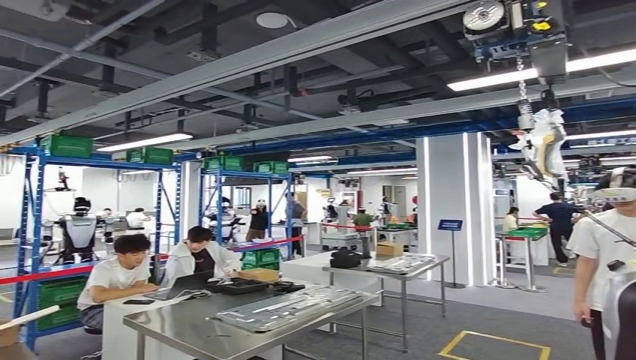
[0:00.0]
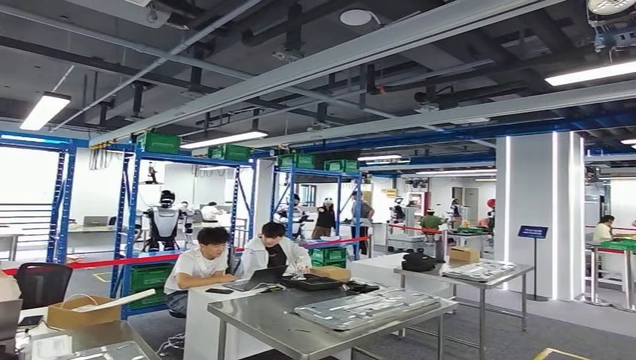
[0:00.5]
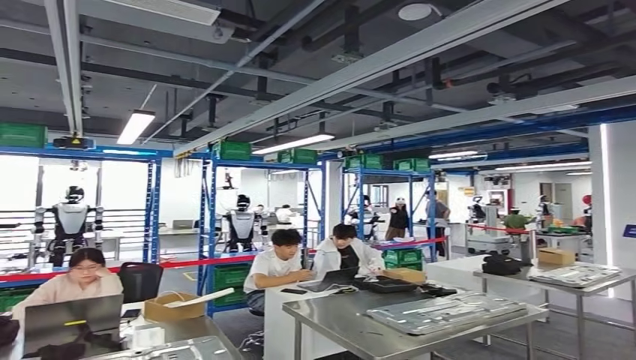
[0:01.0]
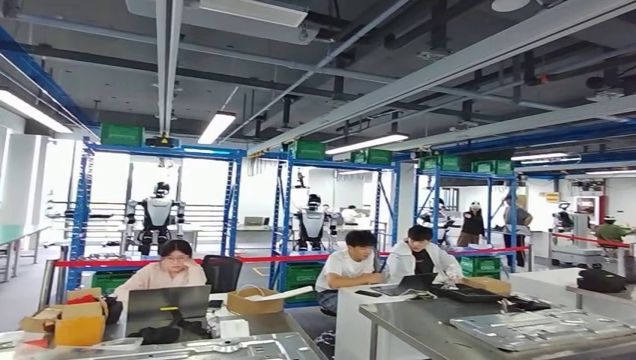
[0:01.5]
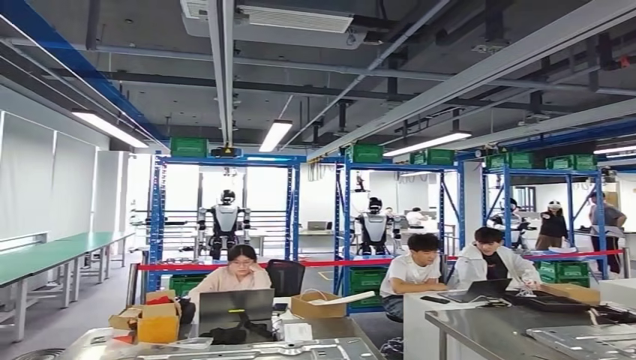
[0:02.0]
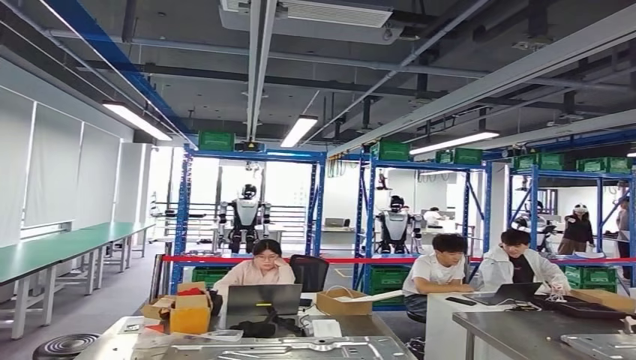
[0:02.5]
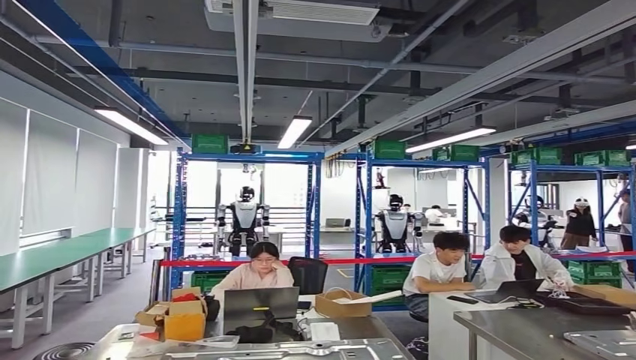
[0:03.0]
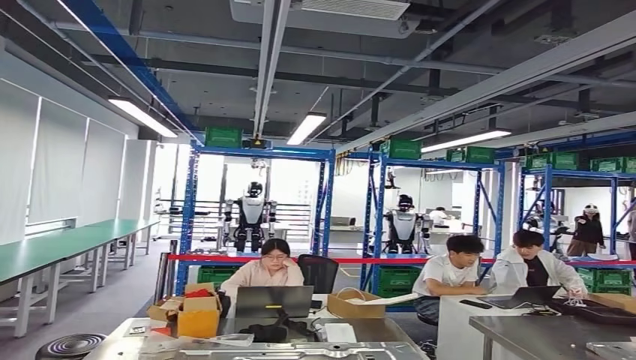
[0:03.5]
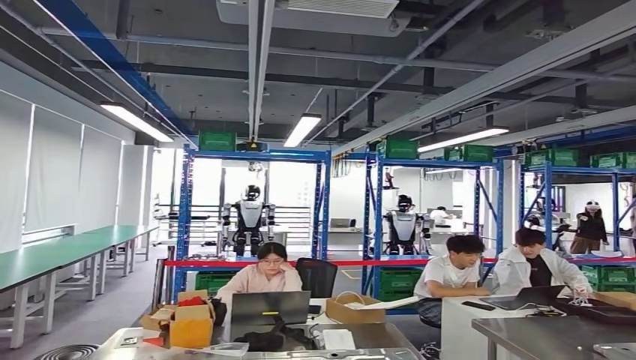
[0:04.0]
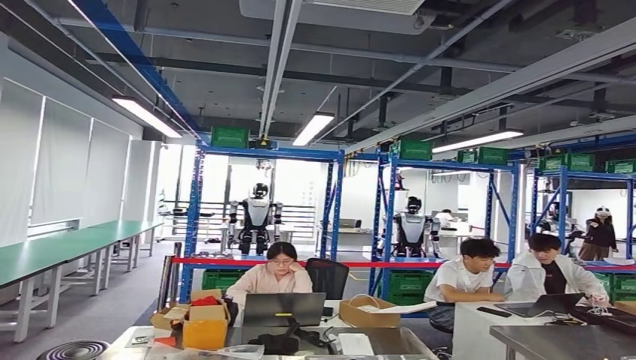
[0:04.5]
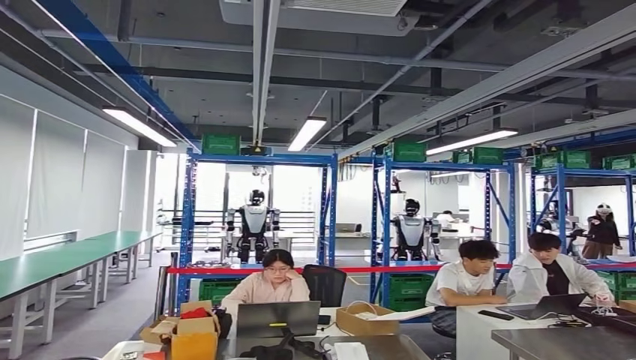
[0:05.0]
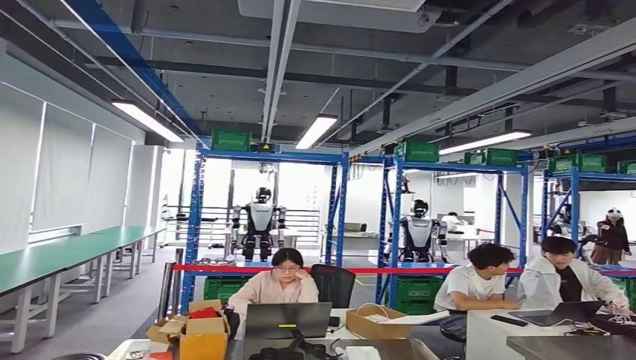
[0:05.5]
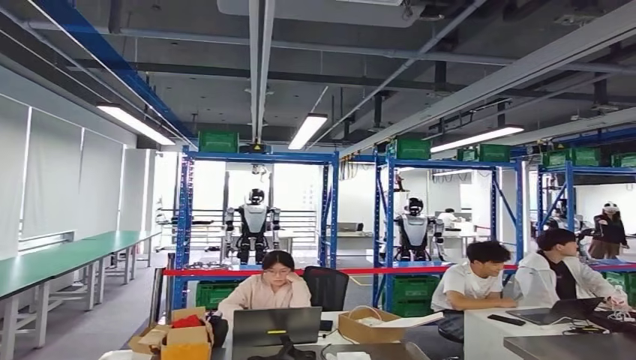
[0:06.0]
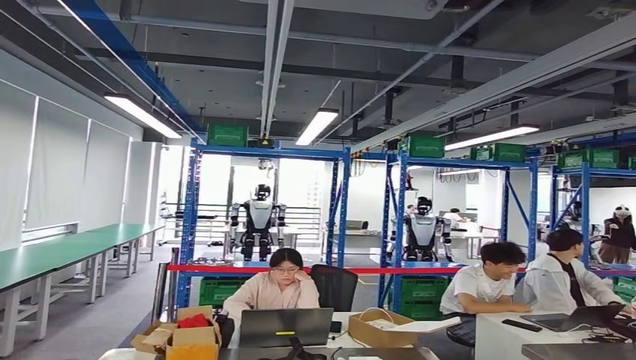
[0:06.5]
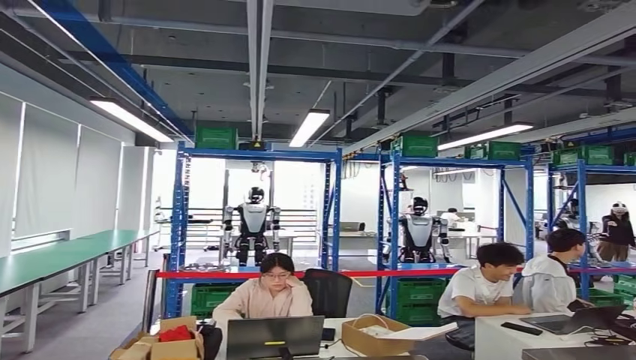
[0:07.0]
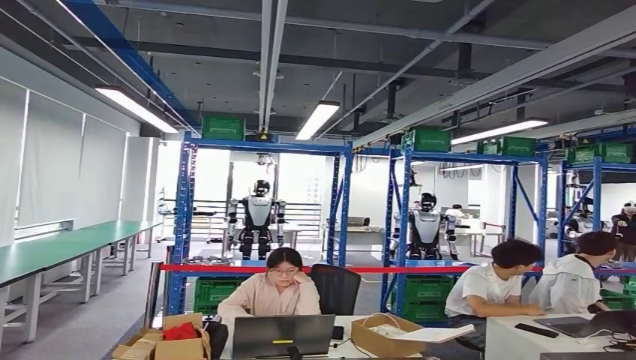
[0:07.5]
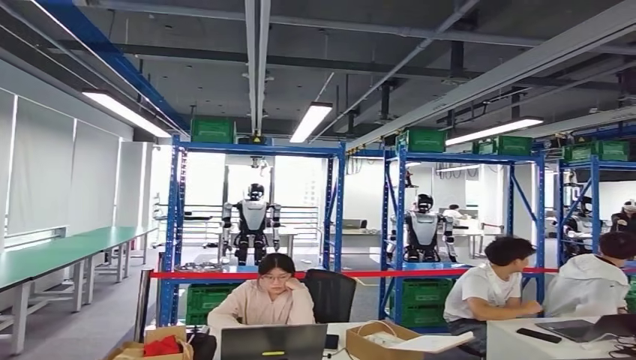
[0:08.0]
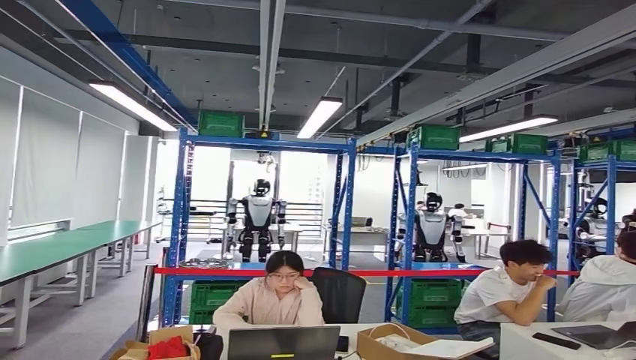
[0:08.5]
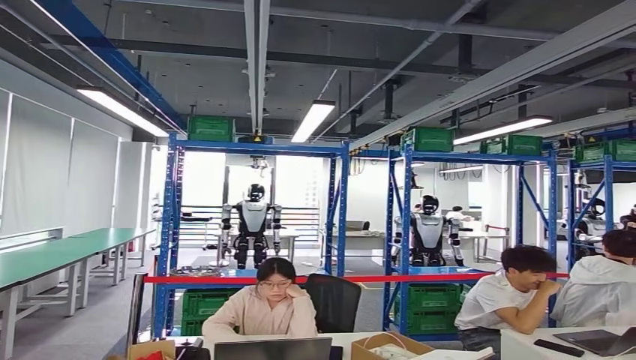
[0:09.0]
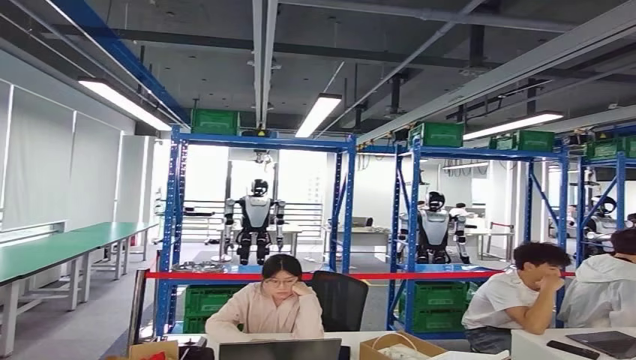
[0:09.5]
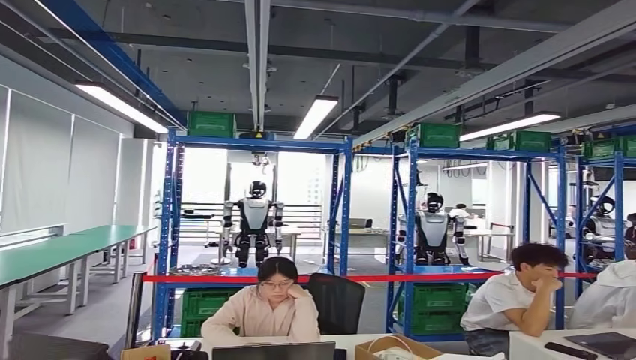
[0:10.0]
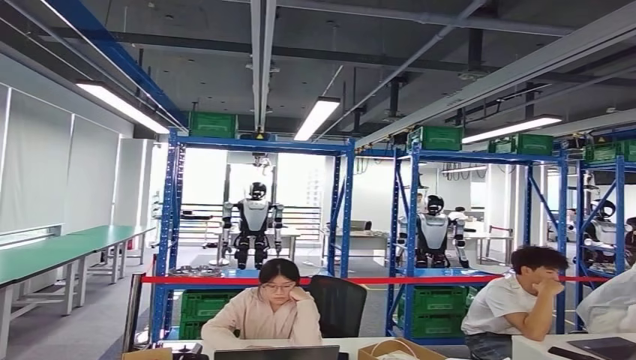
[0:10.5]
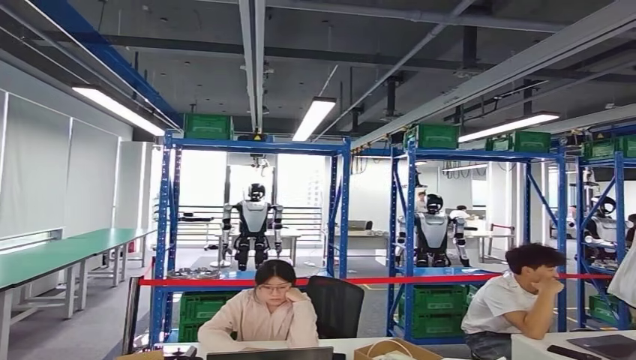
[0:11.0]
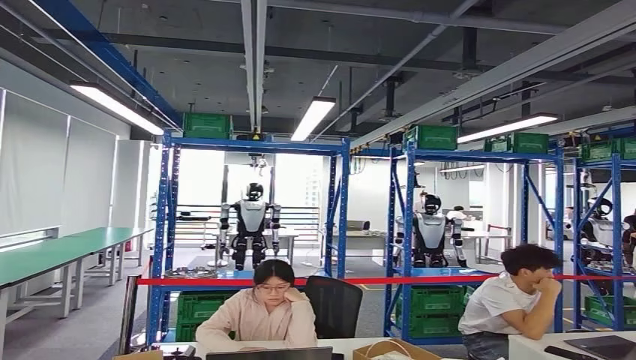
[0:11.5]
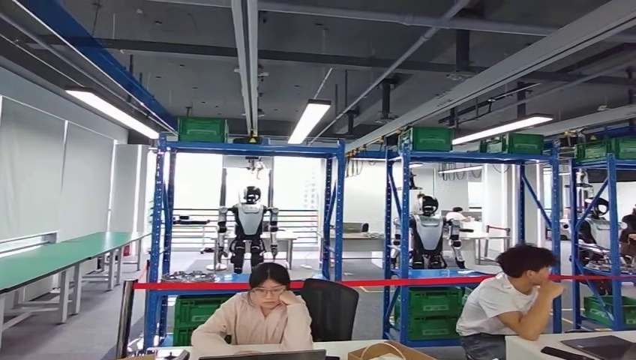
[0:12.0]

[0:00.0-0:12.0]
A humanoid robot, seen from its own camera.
Step, 0:00.0 to 0:10.5: Bring the small component to the front of the workbench.

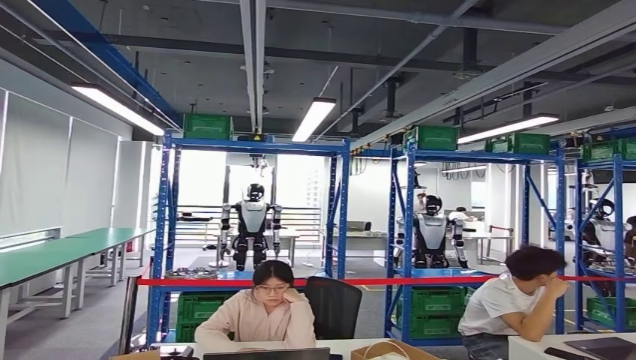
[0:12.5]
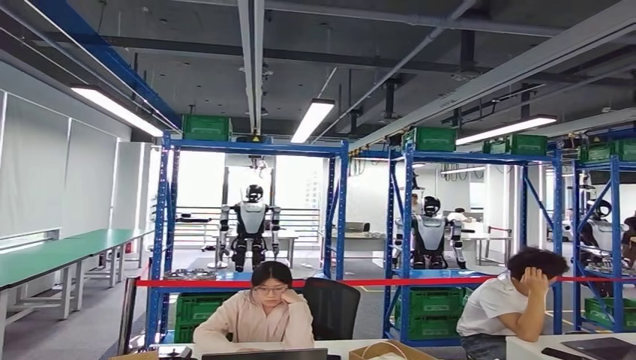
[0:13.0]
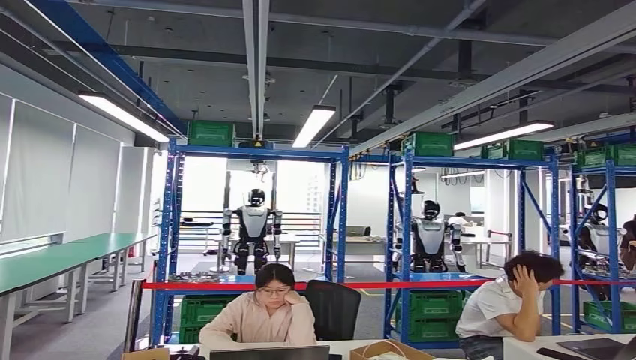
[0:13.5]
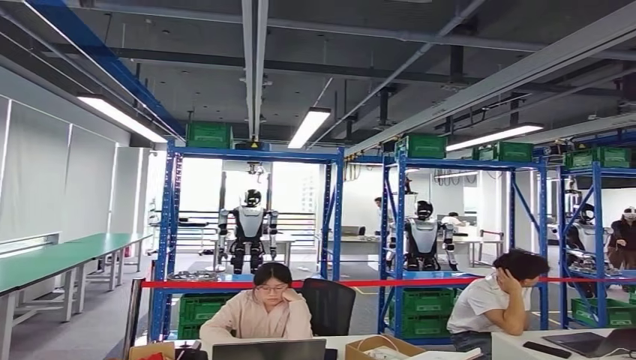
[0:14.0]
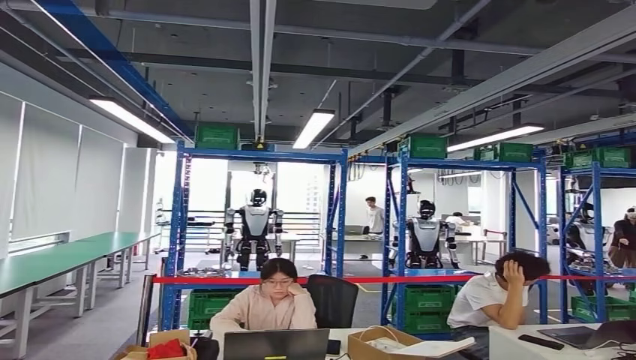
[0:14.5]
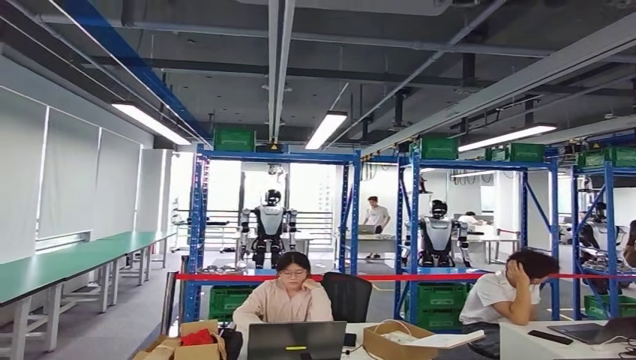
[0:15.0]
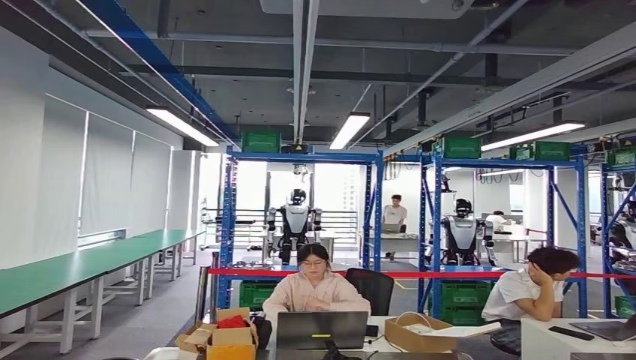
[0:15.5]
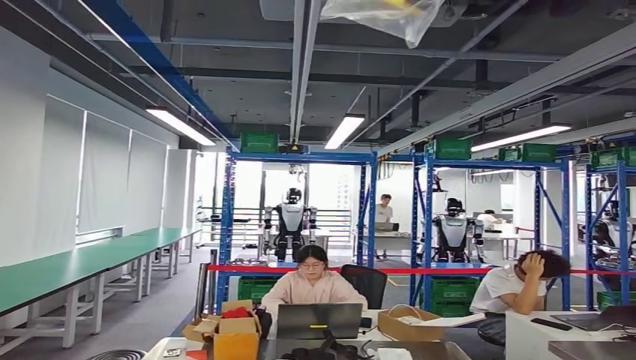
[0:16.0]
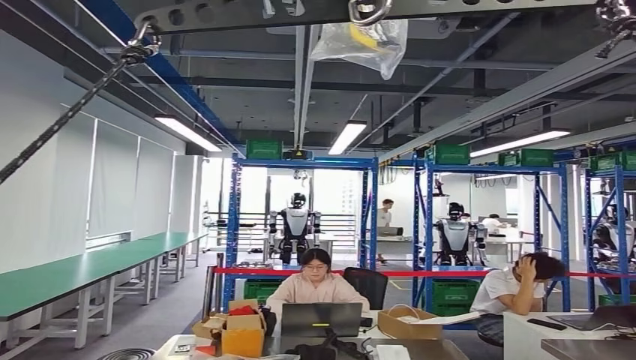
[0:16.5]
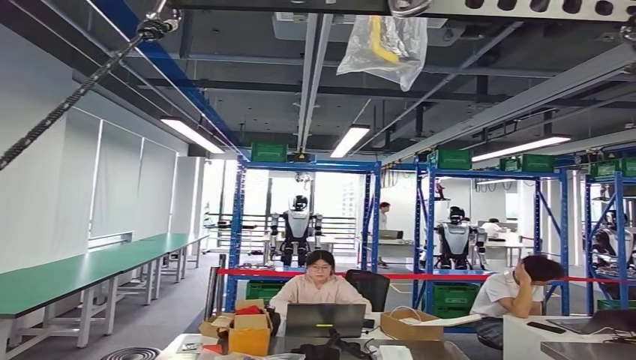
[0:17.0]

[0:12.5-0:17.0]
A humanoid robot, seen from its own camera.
Step, 0:13.0 to 0:17.0: Move to the initial position of the workbench.

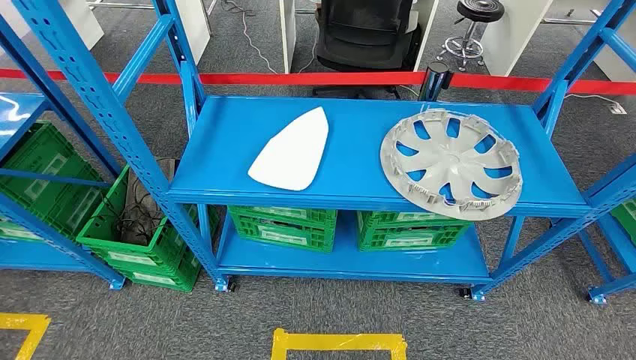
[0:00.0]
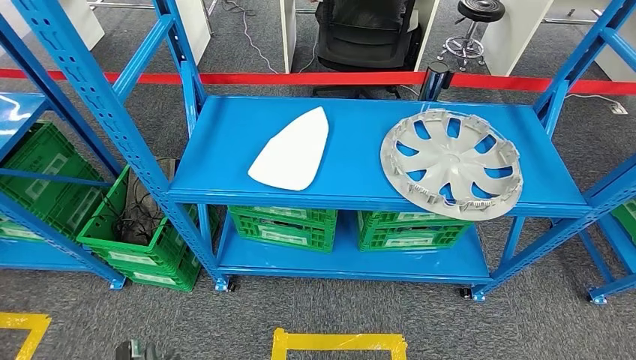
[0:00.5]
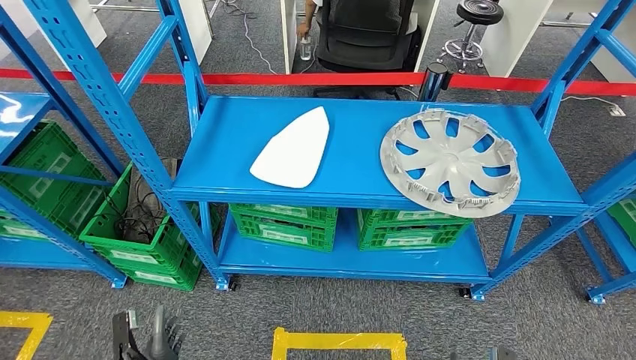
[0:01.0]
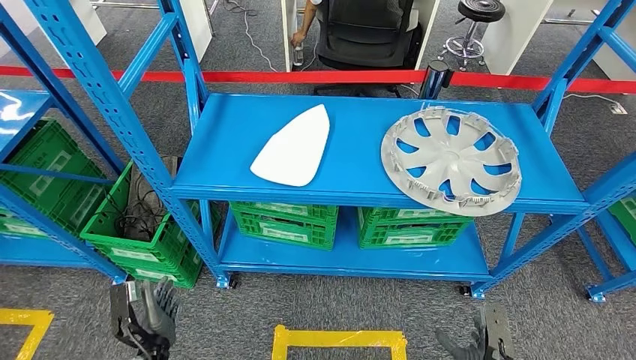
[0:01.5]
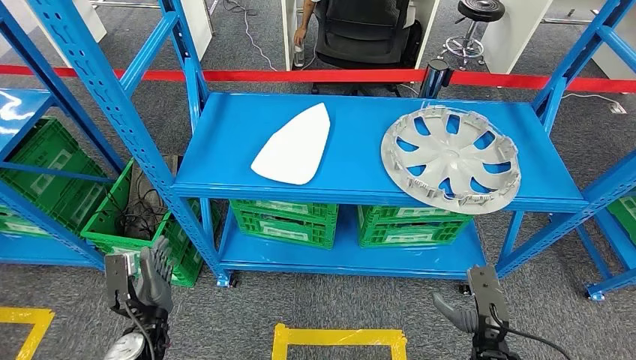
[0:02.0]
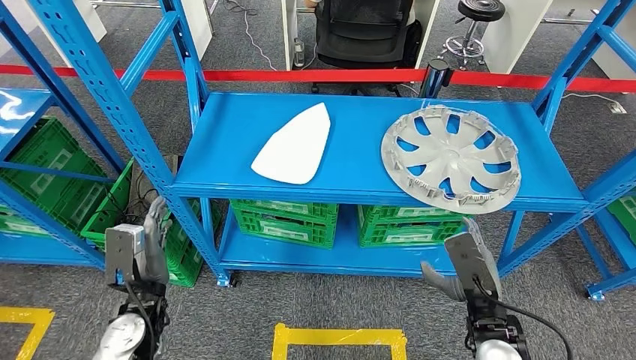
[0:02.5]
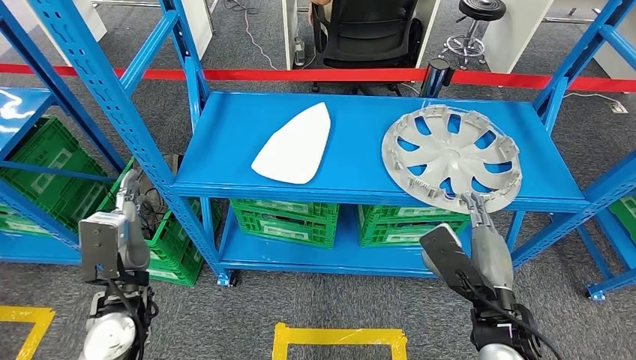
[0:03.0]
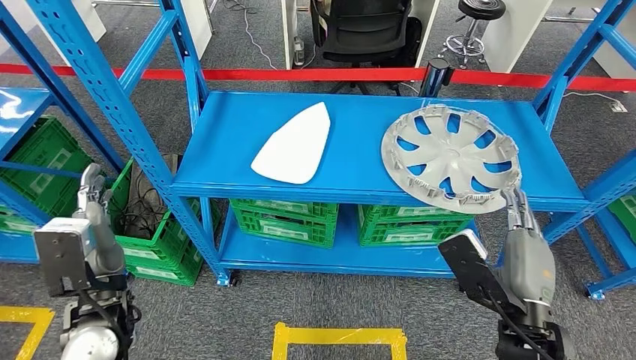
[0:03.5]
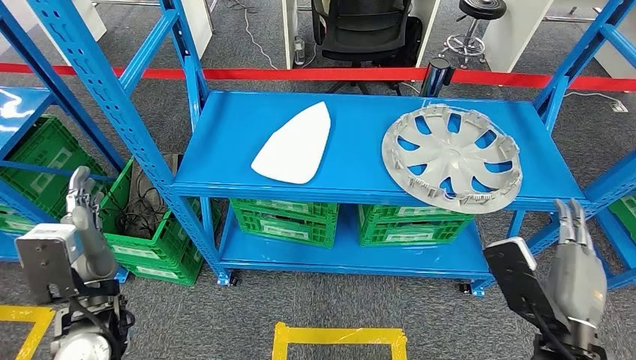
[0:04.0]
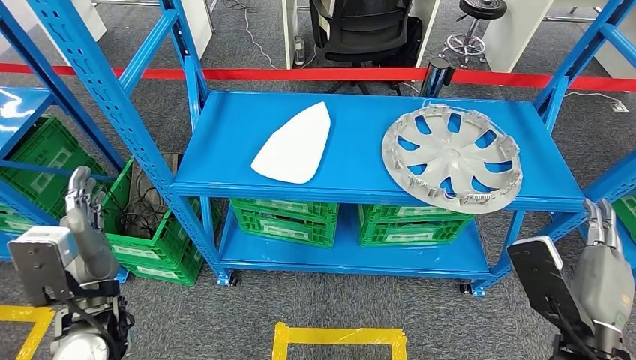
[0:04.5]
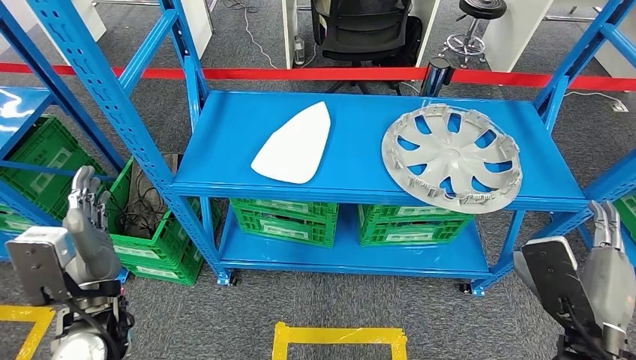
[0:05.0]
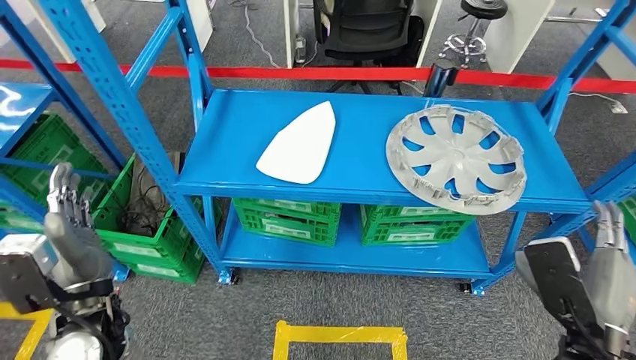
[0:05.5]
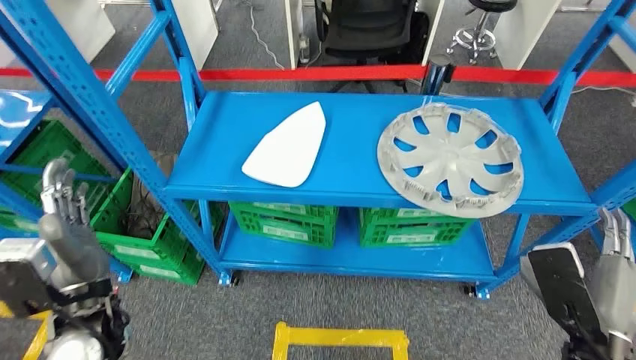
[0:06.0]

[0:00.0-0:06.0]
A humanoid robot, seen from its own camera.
0:02.0 to 0:04.0: Both hands move upward, approximately 15 cm.
